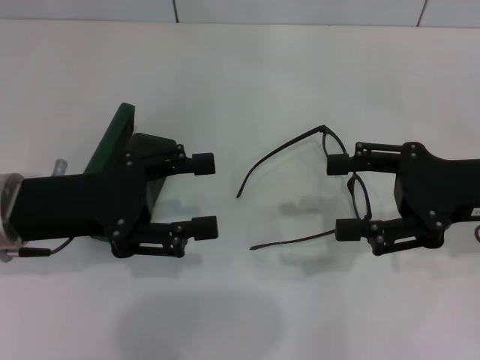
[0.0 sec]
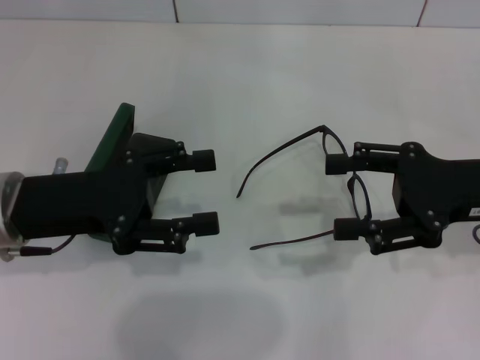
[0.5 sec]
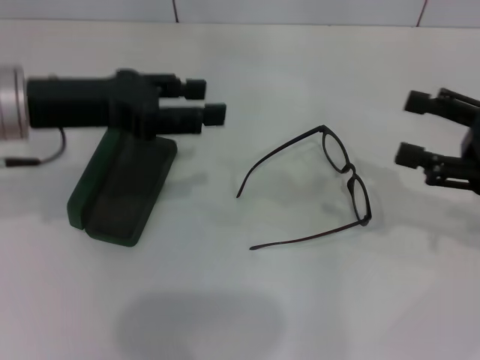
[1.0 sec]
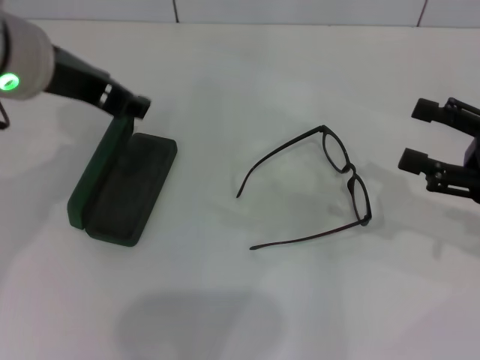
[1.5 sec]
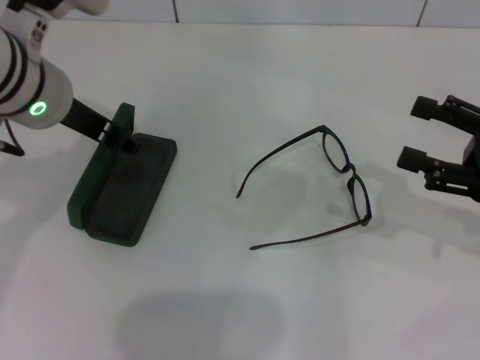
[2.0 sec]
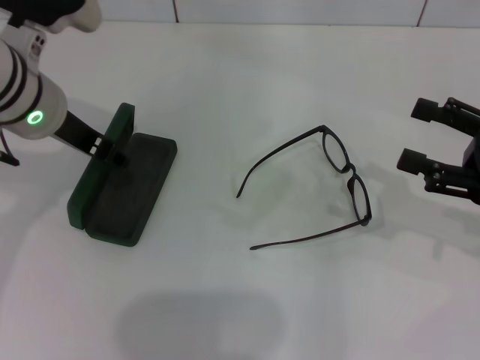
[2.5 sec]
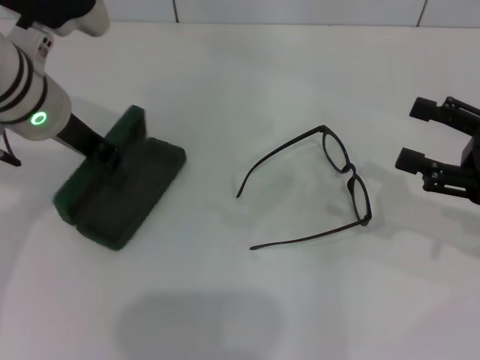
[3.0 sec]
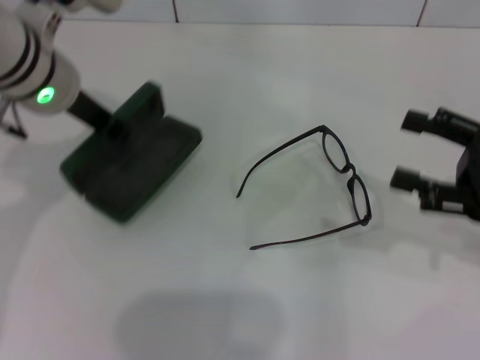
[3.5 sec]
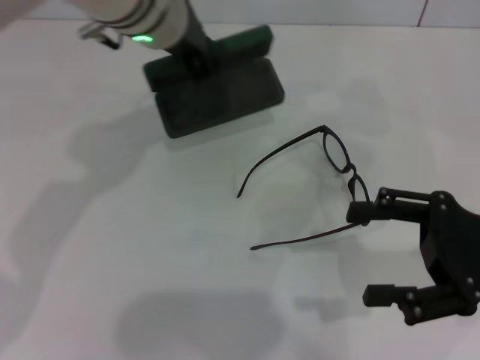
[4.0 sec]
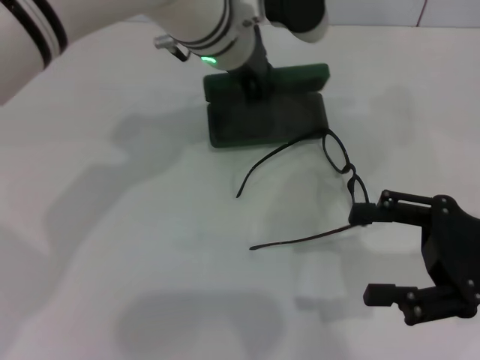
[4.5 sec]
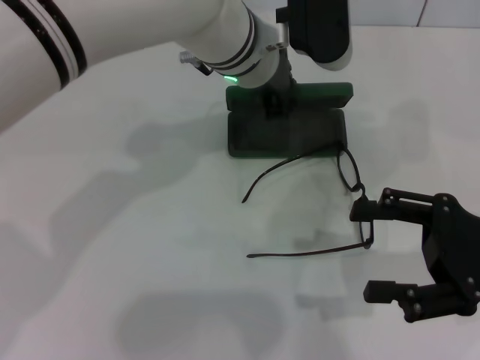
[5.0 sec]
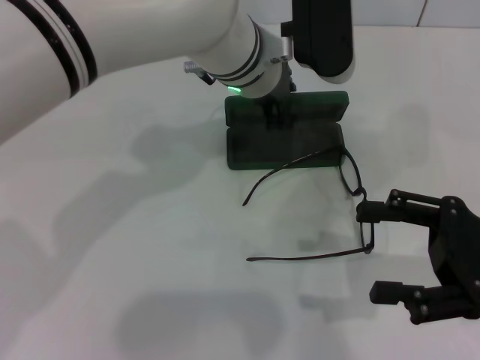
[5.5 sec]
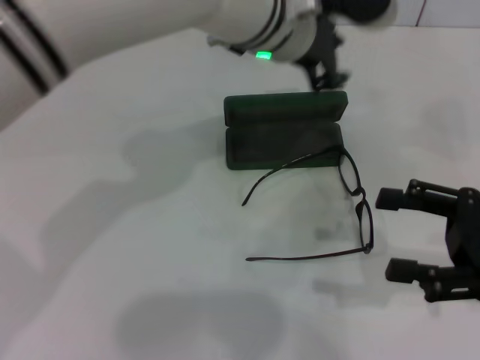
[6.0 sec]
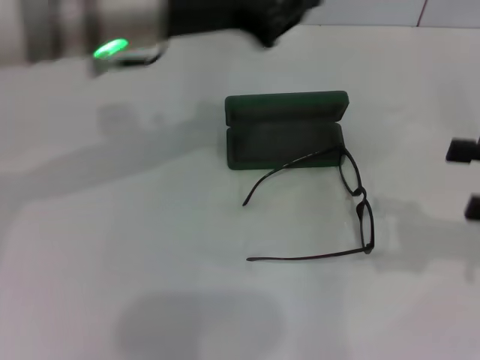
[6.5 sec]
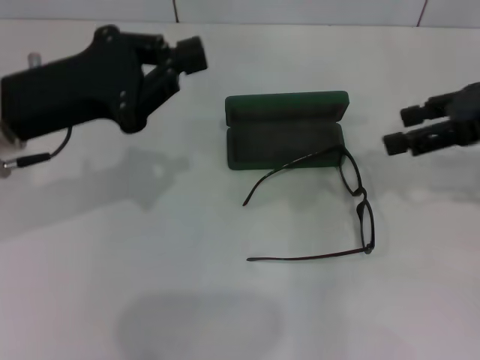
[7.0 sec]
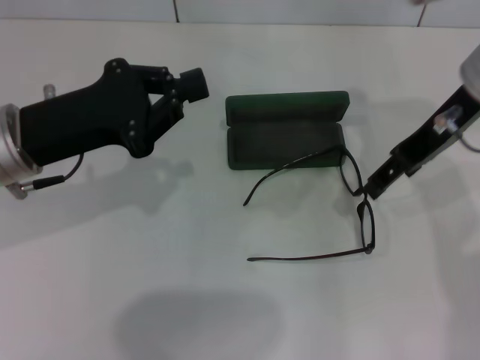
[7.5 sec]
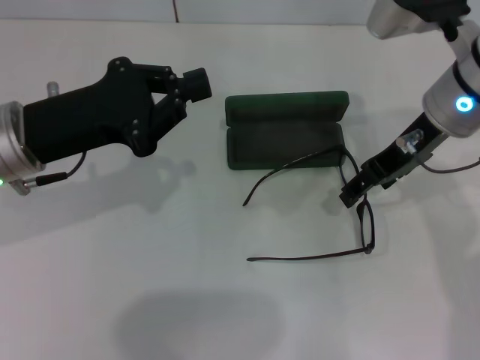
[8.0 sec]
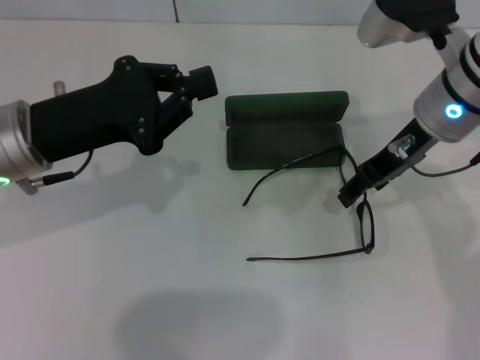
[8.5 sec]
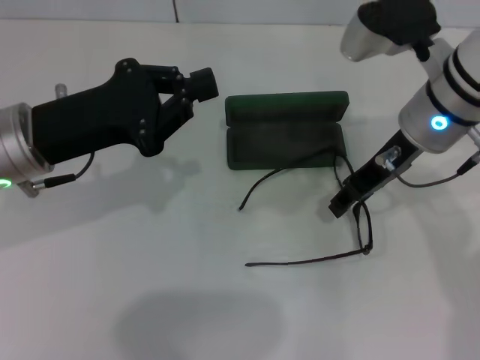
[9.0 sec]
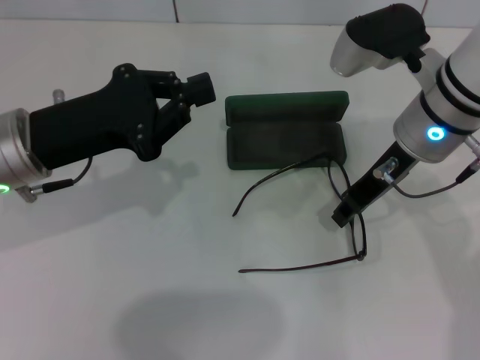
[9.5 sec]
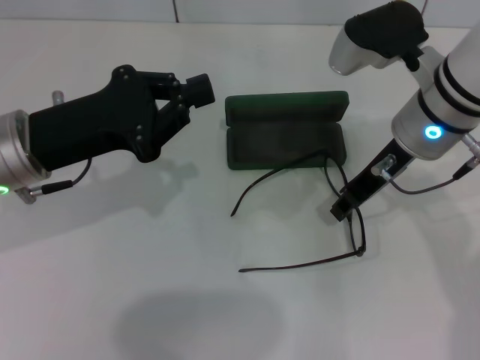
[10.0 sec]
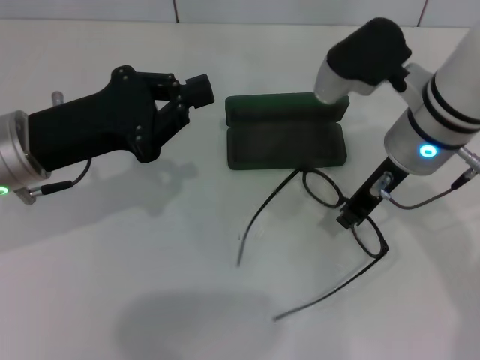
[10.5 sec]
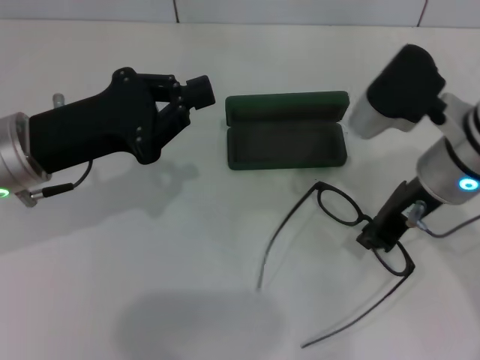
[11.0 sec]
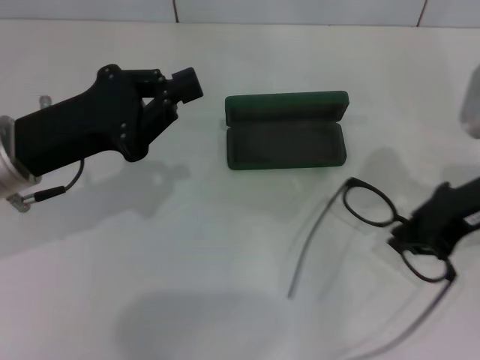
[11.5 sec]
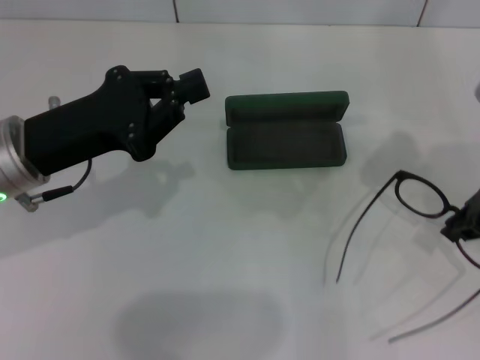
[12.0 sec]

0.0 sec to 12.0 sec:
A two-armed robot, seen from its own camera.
Step, 0.0 sec to 3.0 sec: Grab the glasses case with your left hand.
Step, 3.5 sec to 5.0 sec: Place the glasses case in the center of the table with your left hand.
0.0 sec to 2.0 sec: The left gripper travels upward, forward and to the right by some 15 cm, while the right gripper heads to the right, covering roughly 5 cm.
2.0 sec to 4.0 sec: The left gripper moves to the right and forward, some 10 cm, and closes its fingers.
4.0 sec to 6.0 sec: The left gripper heads to the right, covering some 10 cm.
6.0 sec to 8.0 sec: The left gripper travels to the left and backward by about 25 cm, and closes its fingers; the right gripper travels forward, to the left and upward by roughly 20 cm.
8.0 sec to 10.0 sec: The right gripper closes up.
10.0 sec to 12.0 sec: The right gripper heads to the right, covering about 10 cm.

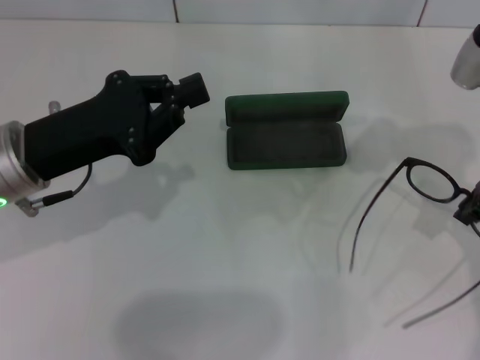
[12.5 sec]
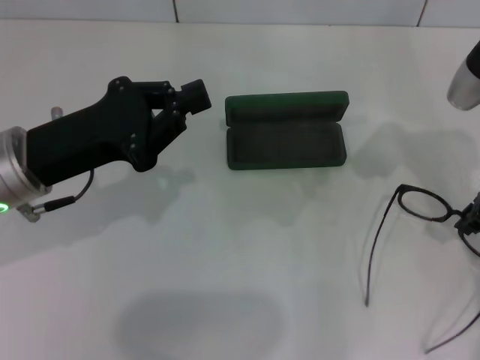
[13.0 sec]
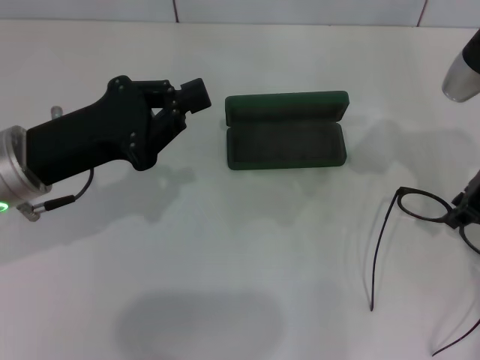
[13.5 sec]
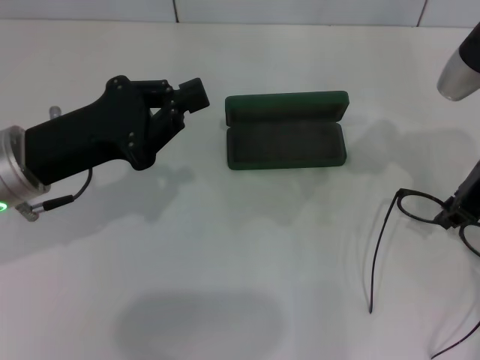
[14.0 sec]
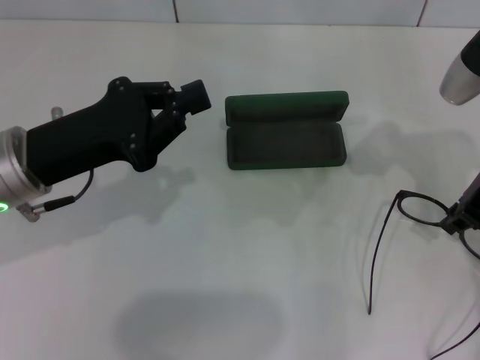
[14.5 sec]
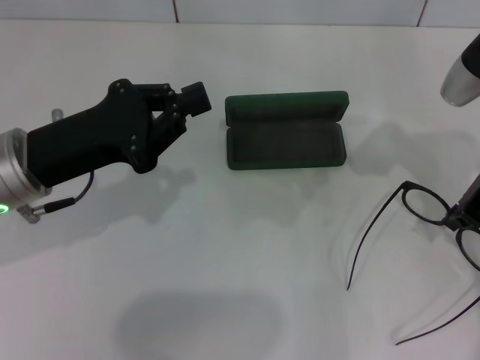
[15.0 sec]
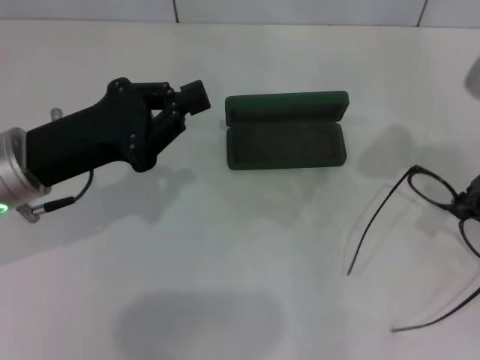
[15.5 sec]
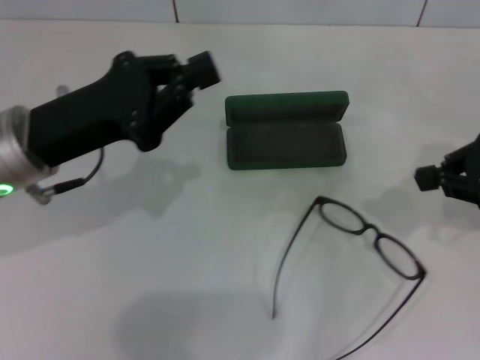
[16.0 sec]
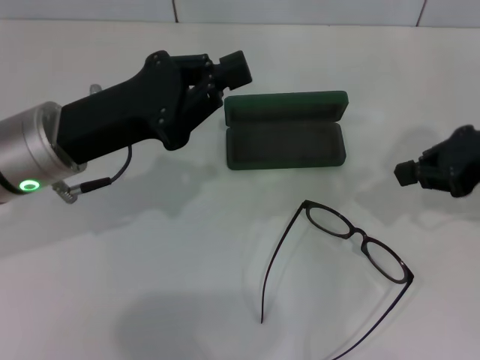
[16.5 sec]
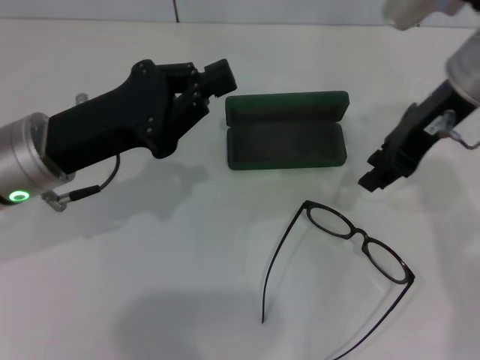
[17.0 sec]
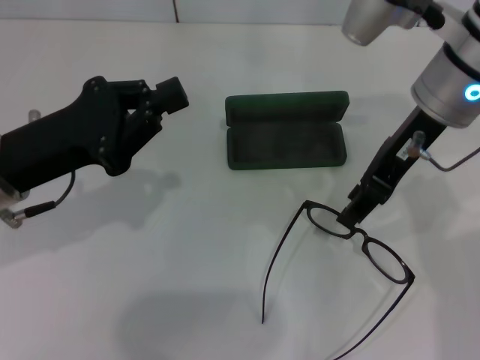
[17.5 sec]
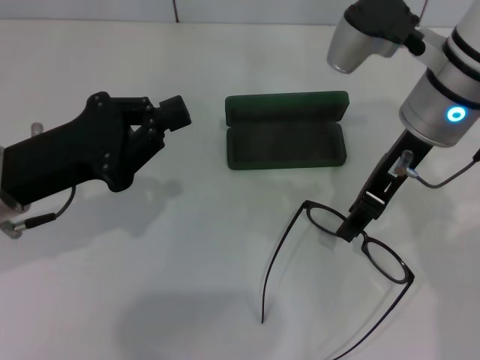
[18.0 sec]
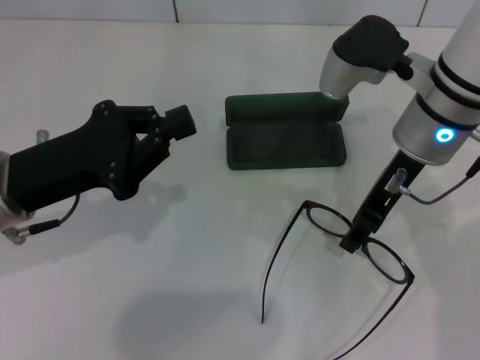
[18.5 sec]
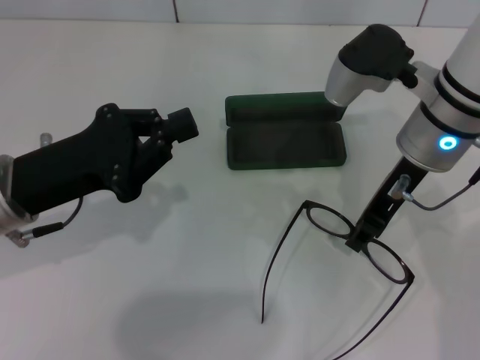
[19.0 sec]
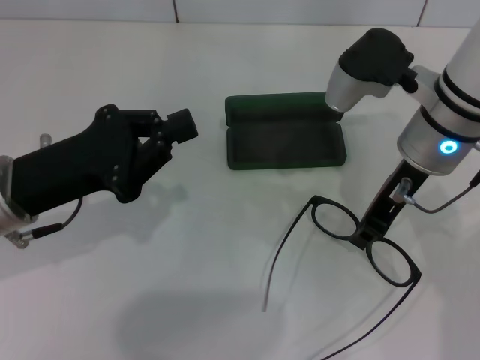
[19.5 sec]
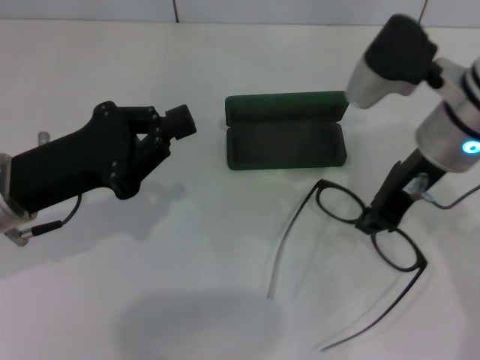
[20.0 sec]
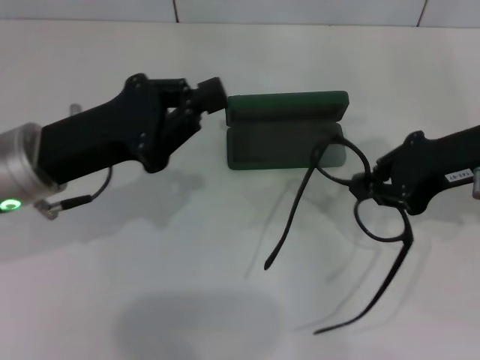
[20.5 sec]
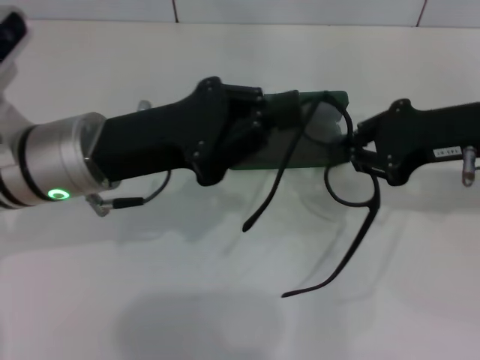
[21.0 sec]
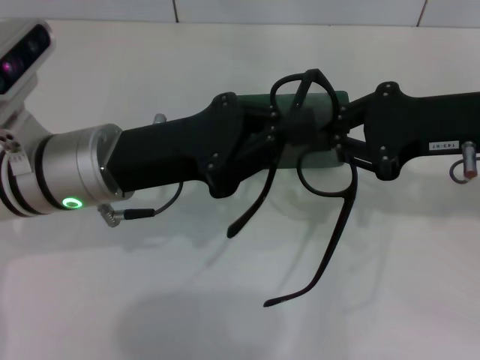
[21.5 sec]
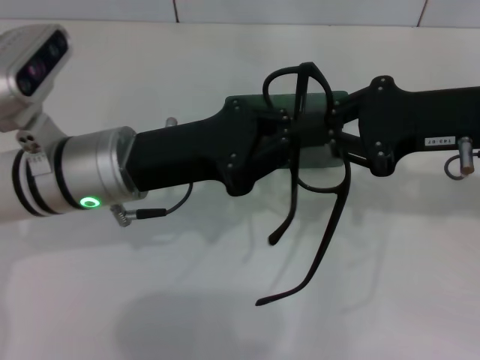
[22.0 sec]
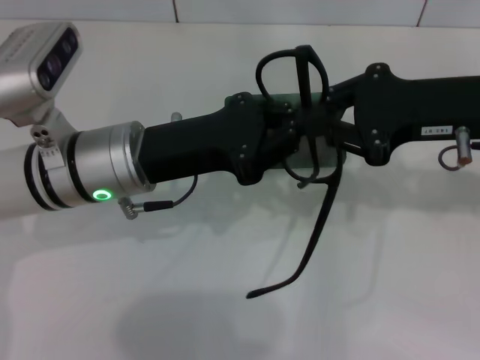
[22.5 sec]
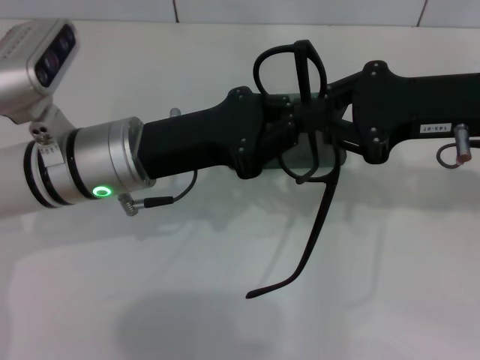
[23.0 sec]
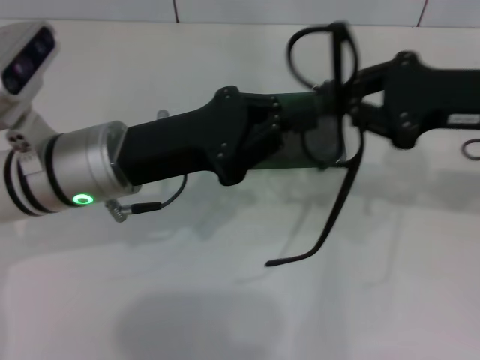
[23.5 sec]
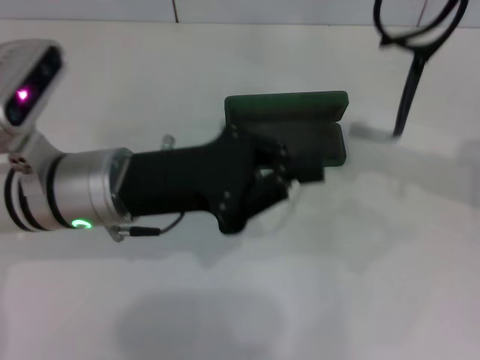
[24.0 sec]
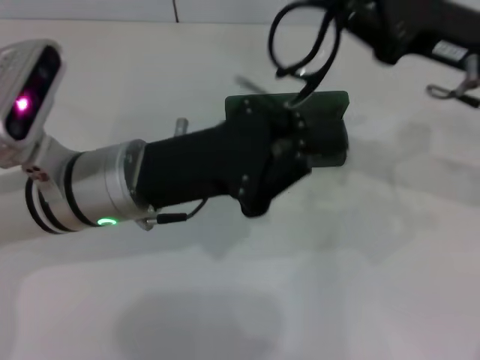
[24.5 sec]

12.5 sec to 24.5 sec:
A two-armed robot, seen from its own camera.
Step, 12.5 sec to 19.5 sec: Grab the eyeglass frame with your right hand.
12.5 sec to 14.5 sec: The grippers move only a little.
16.5 sec to 18.5 sec: The right gripper is displaced to the left by roughly 15 cm, and opens. Meanwhile the left gripper shifts by roughly 5 cm.
18.5 sec to 20.5 sec: The right gripper shifts about 10 cm to the right, and closes.
20.5 sec to 22.5 sec: The left gripper travels to the right by about 5 cm.
22.5 sec to 24.5 sec: The right gripper travels to the right and back again, approximately 5 cm each way.

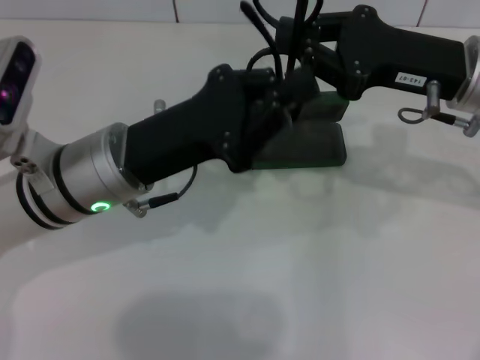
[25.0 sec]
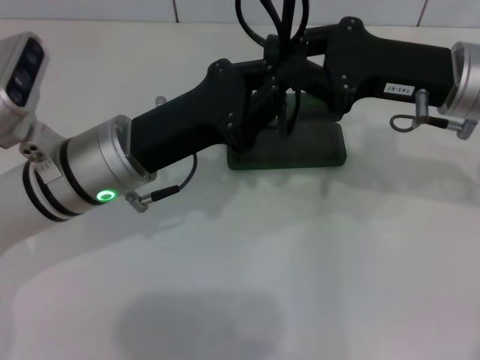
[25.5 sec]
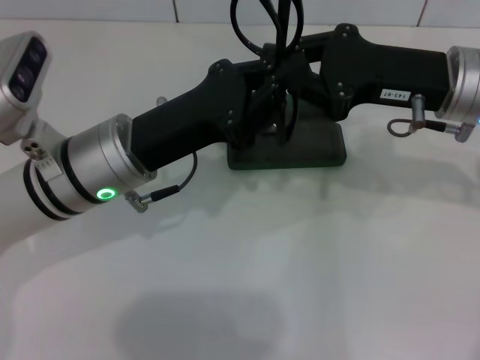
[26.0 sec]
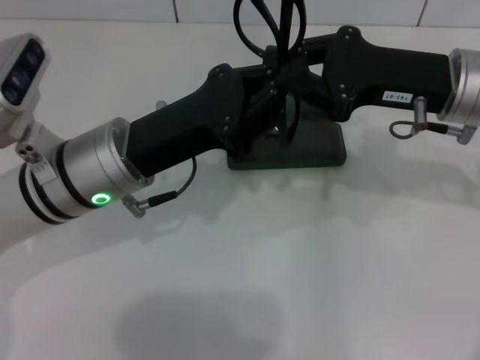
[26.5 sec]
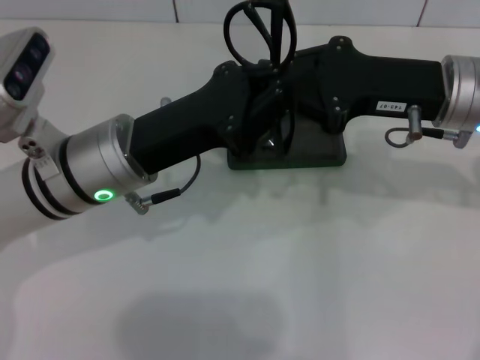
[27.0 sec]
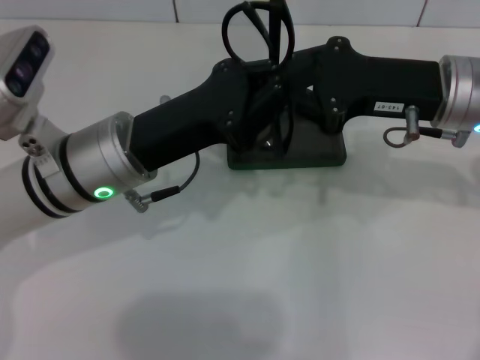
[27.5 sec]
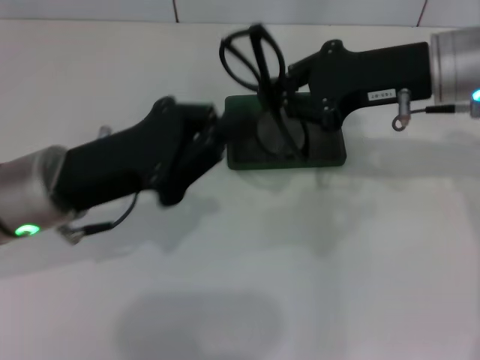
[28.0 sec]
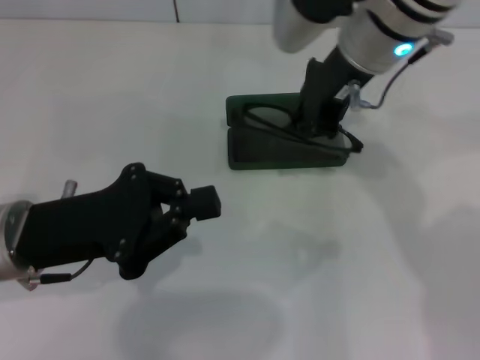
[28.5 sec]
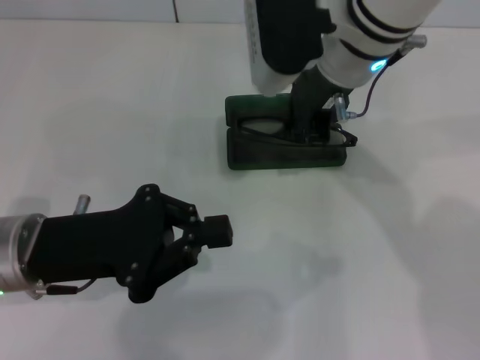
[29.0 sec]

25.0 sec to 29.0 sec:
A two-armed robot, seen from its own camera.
Step, 25.0 sec to 27.5 sec: Fold the frame with your left hand.
25.0 sec to 27.0 sec: The grippers stay close to where they were, moving slightly.
27.0 sec to 29.0 sec: The left gripper is displaced to the left and backward by some 10 cm. Meanwhile the right gripper moves to the left, about 15 cm.
